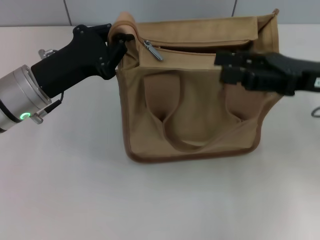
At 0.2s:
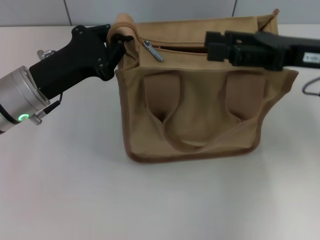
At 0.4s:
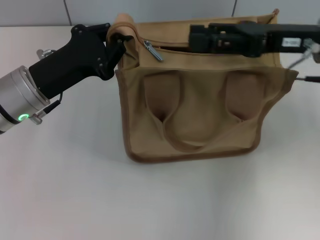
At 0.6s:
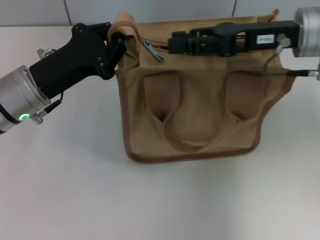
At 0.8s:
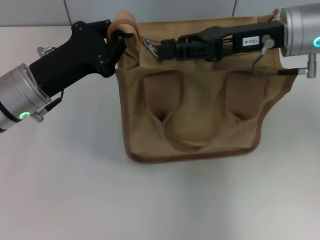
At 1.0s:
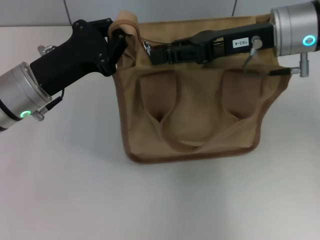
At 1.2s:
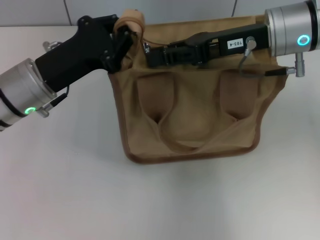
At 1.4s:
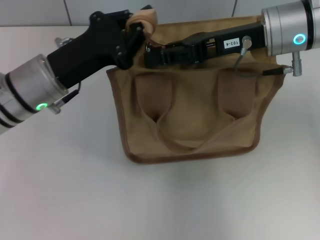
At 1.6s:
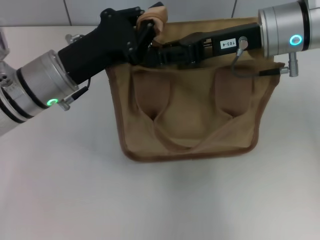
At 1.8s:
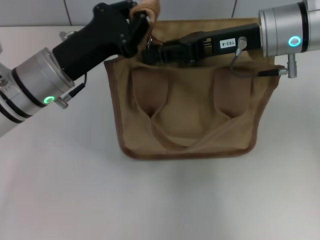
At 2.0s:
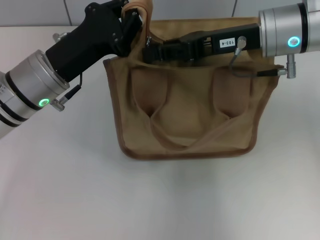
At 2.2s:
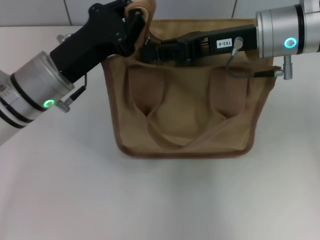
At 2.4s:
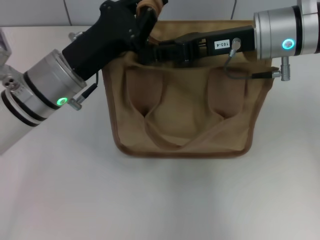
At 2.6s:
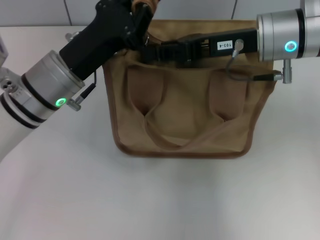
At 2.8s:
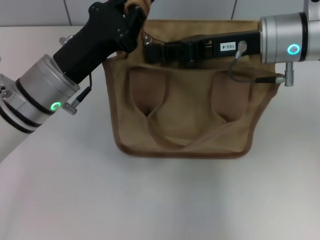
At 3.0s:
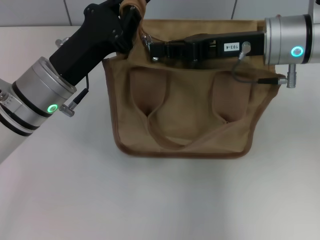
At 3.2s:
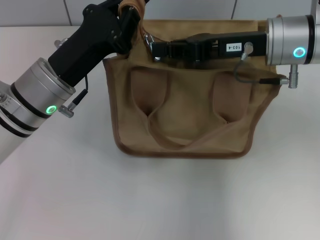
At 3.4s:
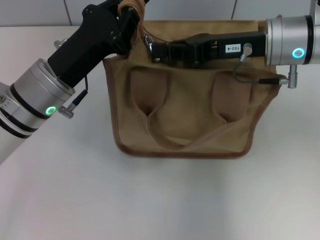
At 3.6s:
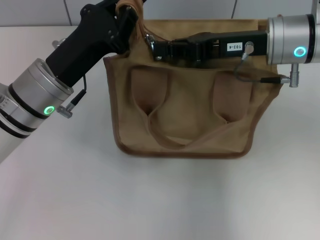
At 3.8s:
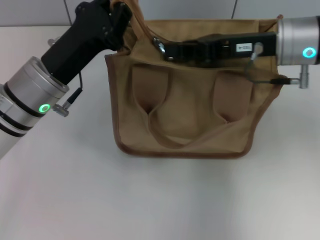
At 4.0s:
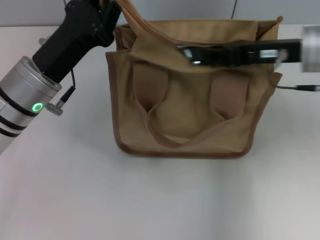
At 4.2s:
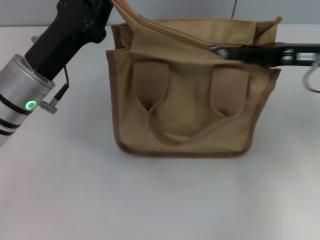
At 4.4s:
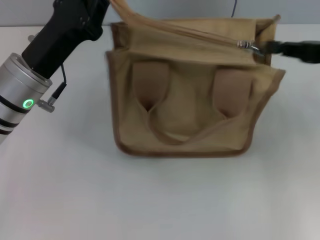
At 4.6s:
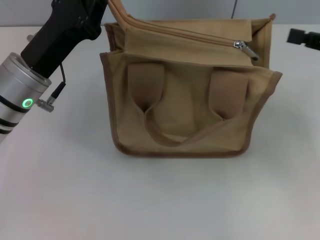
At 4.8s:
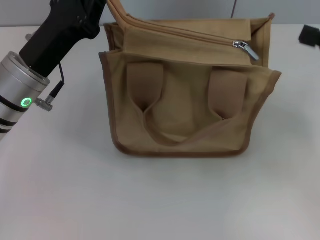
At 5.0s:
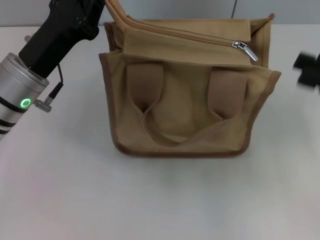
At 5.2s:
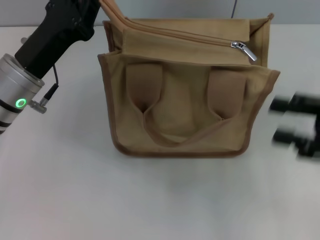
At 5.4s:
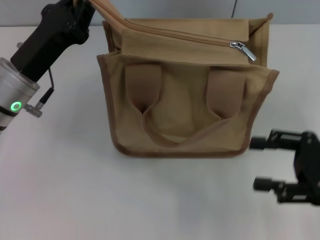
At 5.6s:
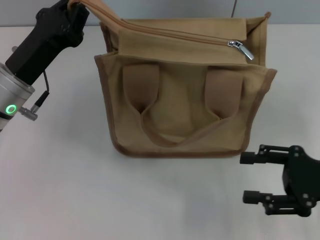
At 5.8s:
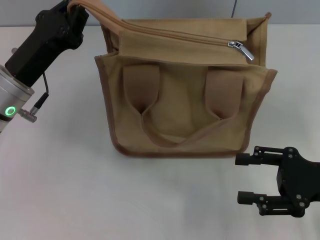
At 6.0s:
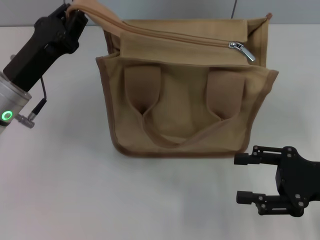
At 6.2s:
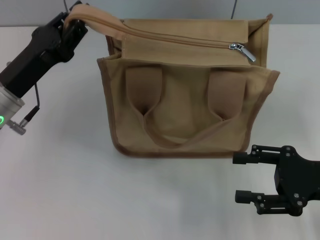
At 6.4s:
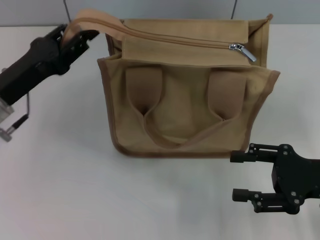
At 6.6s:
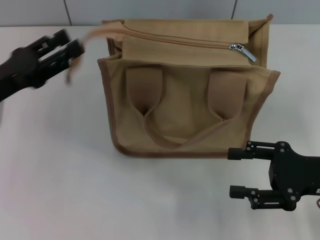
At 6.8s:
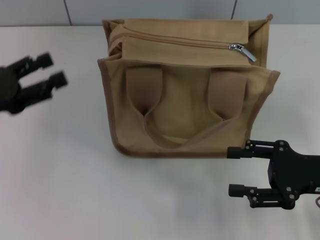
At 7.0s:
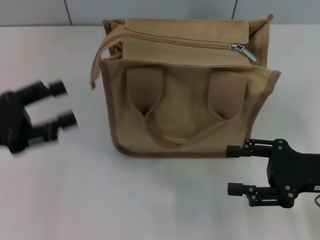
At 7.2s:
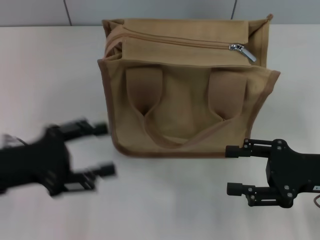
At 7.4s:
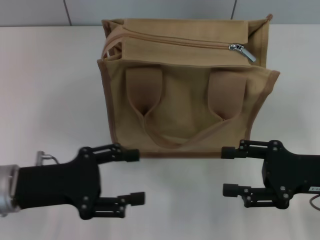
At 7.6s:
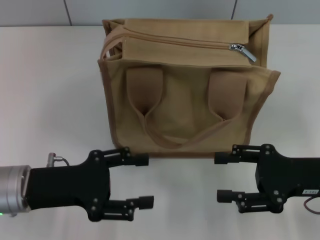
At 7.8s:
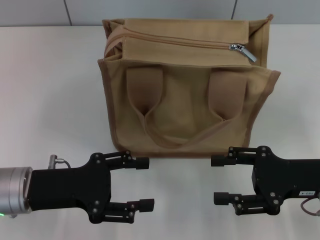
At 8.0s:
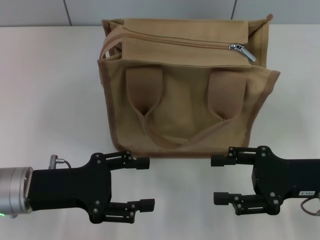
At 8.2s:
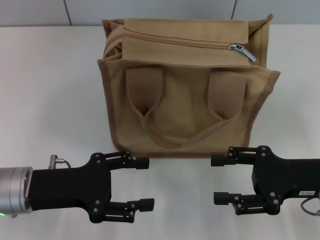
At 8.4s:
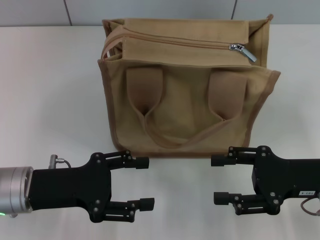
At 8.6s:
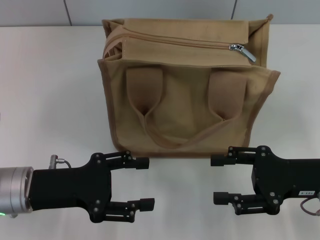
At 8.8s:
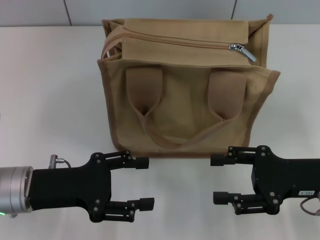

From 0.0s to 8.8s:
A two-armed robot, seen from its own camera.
Step, from 0.0s to 4.6s: Pull up the zipper with your right hand.
Step, from 4.8s to 6.6s: Grab the zipper with your left hand.
From 0.0s to 1.4s: The right gripper is displaced to the left and forward by about 10 cm, and closes.
From 1.4s to 3.0s: The grippers make only small movements.
From 3.0s to 4.4s: The right gripper shifts some 15 cm to the right.
From 4.4s to 5.8s: The right gripper shifts some 15 cm backward and downward, and opens up.
From 5.8s to 7.4s: The left gripper shifts some 10 cm backward, reaches approximately 10 cm to the left, then returns, and opens up.
From 7.4s to 8.8s: The grippers move only a little.

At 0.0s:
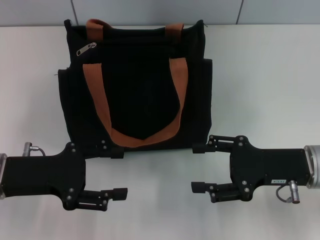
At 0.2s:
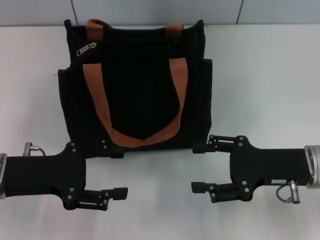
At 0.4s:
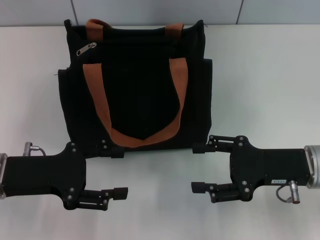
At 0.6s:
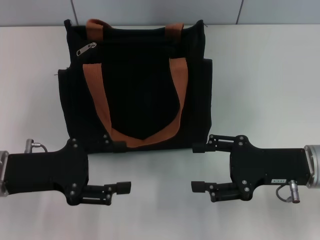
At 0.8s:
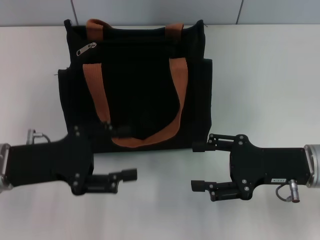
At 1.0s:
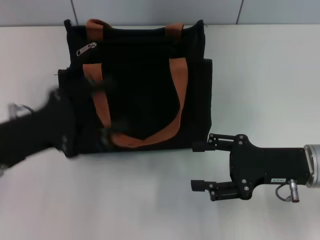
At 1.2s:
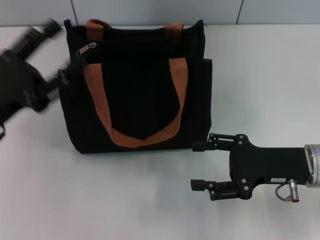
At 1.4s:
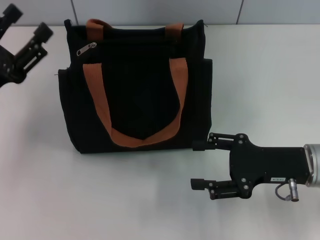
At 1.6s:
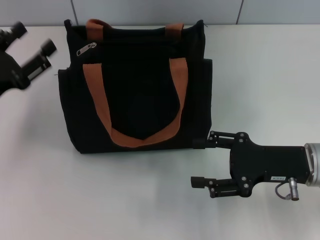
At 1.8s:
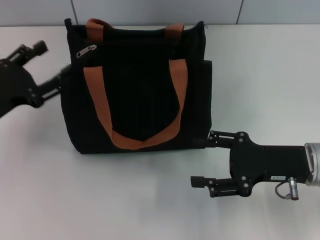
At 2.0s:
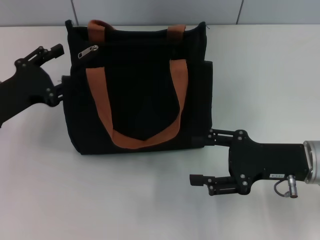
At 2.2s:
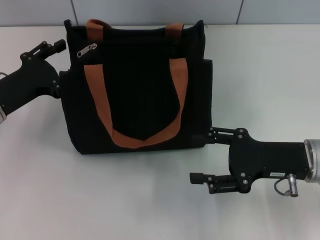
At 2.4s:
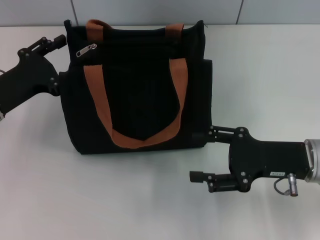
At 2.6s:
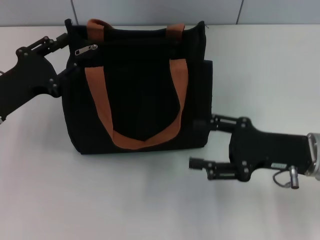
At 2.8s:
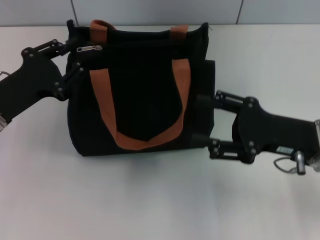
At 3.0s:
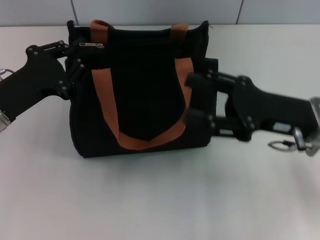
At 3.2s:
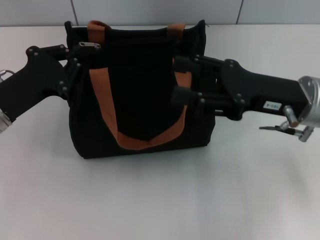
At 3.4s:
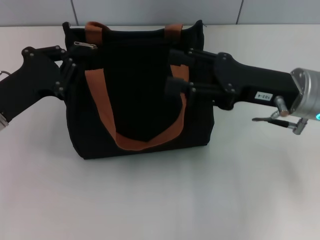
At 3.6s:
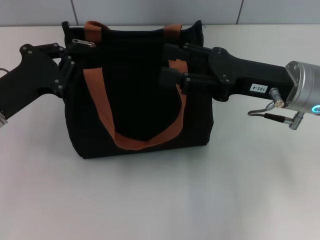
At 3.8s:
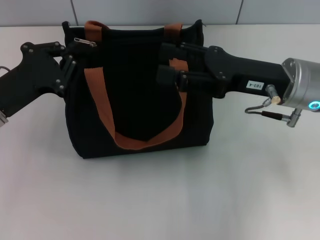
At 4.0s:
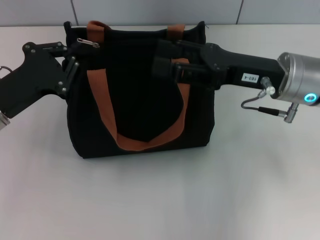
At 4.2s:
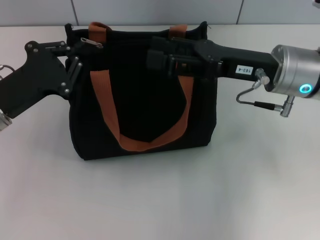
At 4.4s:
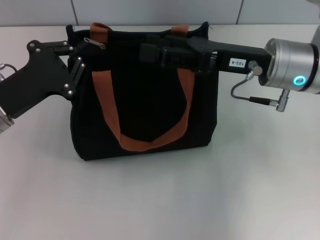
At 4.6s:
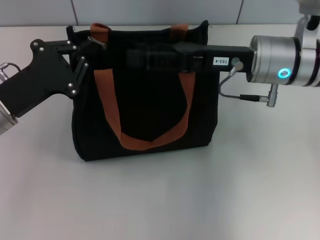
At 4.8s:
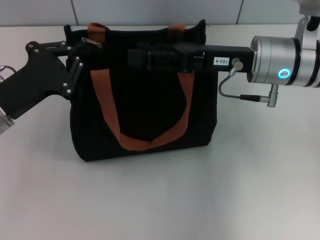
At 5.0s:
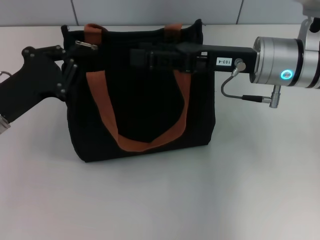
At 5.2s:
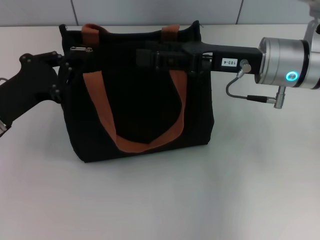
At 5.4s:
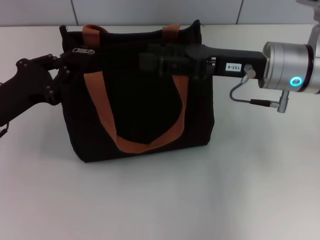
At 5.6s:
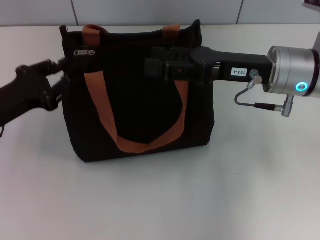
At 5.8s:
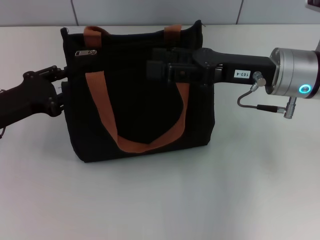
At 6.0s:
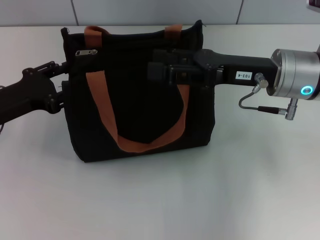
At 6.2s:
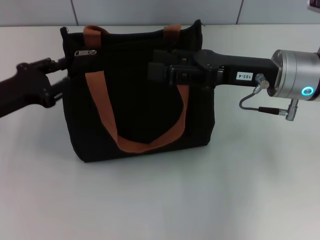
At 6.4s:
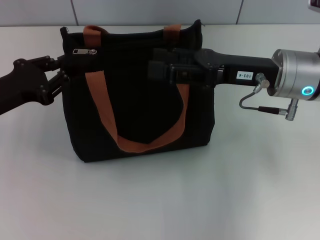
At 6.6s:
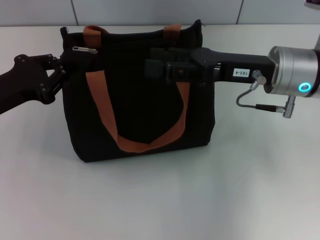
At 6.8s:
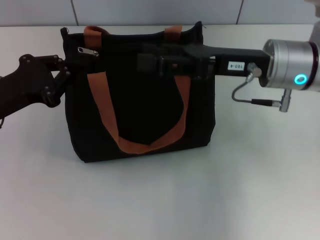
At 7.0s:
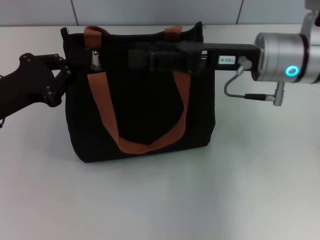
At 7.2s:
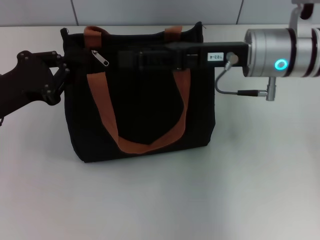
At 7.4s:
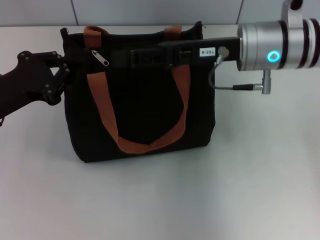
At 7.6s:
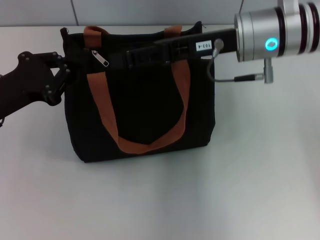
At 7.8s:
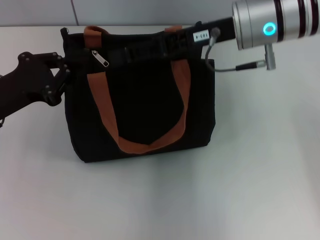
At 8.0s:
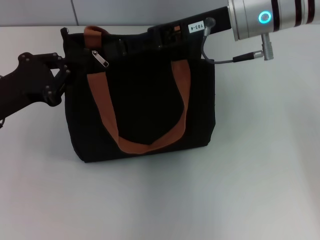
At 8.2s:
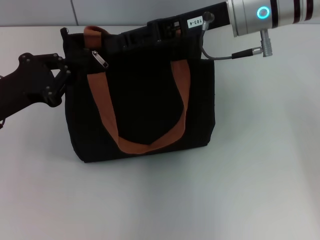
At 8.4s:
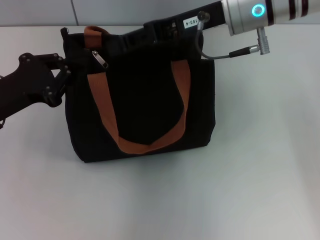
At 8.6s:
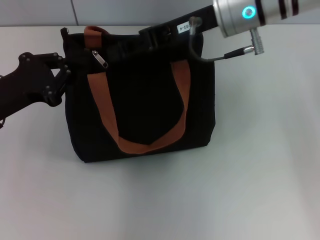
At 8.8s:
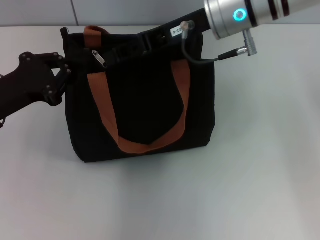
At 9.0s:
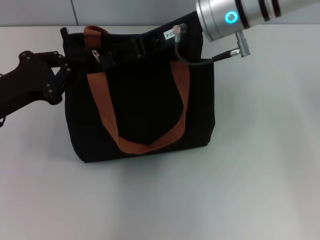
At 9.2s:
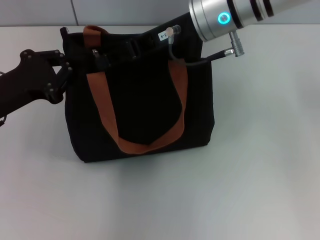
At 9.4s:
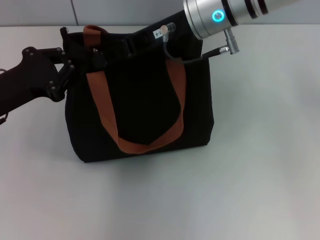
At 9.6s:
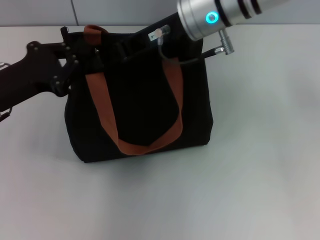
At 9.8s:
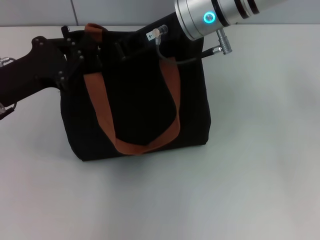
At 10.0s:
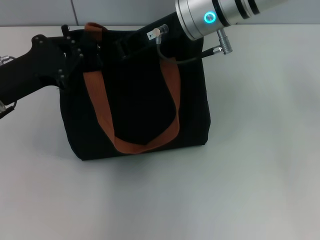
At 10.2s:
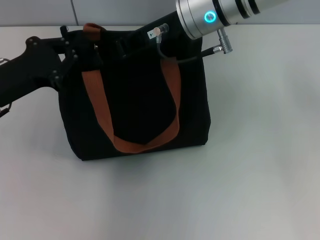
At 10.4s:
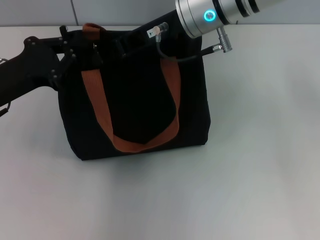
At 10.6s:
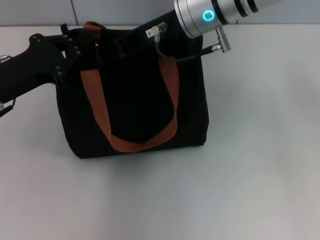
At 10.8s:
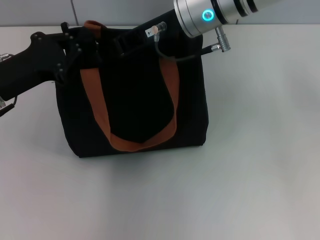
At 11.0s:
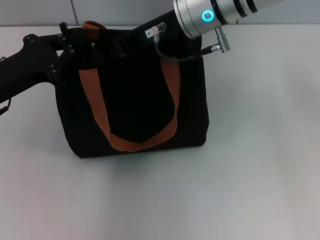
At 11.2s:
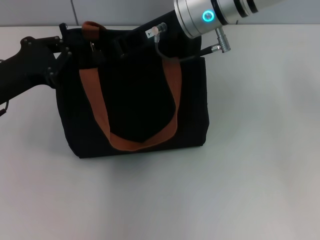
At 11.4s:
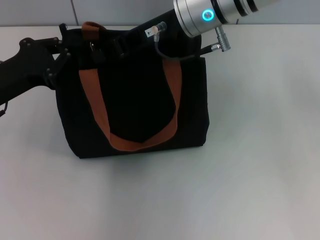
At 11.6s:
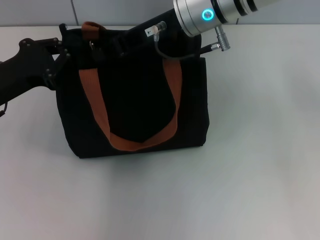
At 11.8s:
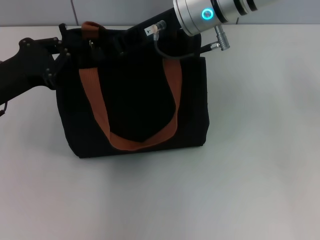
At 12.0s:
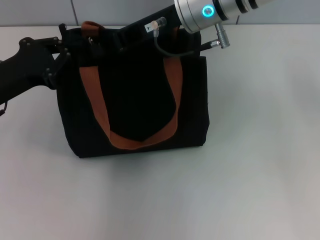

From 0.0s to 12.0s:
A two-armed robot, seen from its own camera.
From 0.0s to 1.6s: The left gripper ends up approximately 5 cm from where it was.
From 1.6s to 3.0s: The right gripper ends up some 5 cm from where it was. The left gripper closes up.
From 3.0s to 4.4s: The right gripper heads forward, covering some 5 cm.
From 4.4s to 6.0s: The left gripper opens up.
From 6.0s to 7.6s: The right gripper changes place by roughly 10 cm. The left gripper closes.
From 7.6s to 9.0s: The right gripper moves approximately 5 cm, and closes.
From 9.0s to 10.4s: There are only small adjustments of the grippers.
From 10.4s to 12.0s: The two grippers keep their place.

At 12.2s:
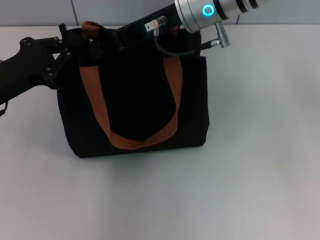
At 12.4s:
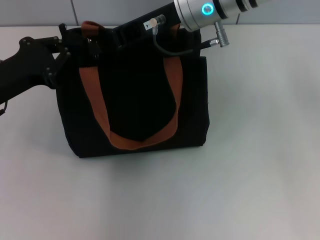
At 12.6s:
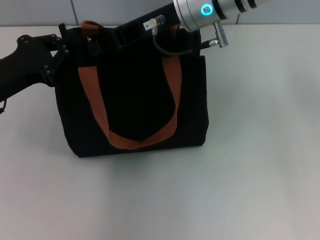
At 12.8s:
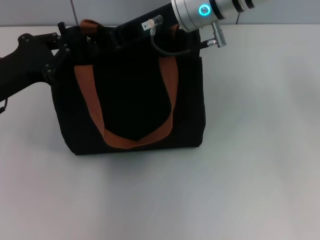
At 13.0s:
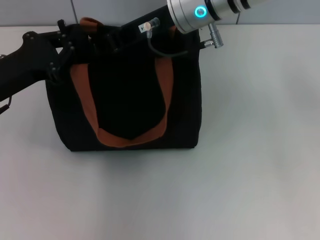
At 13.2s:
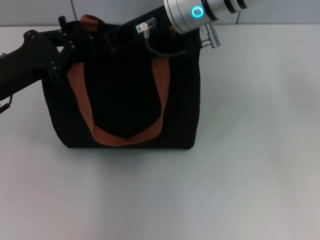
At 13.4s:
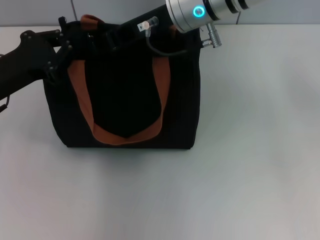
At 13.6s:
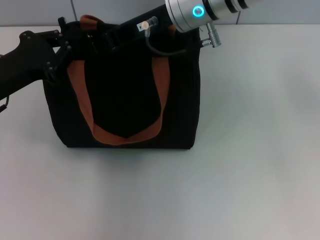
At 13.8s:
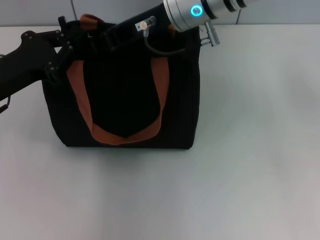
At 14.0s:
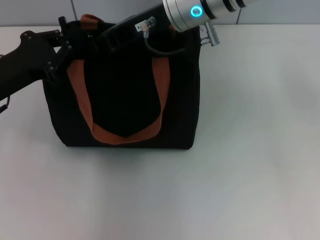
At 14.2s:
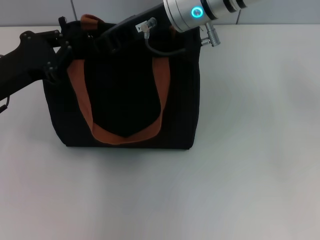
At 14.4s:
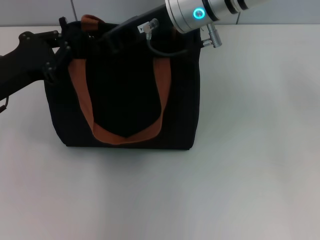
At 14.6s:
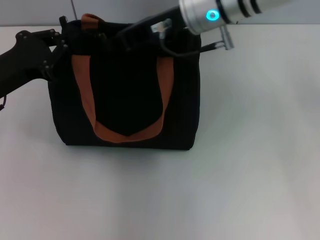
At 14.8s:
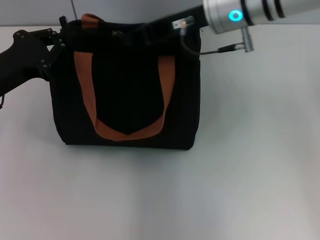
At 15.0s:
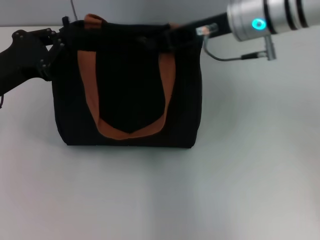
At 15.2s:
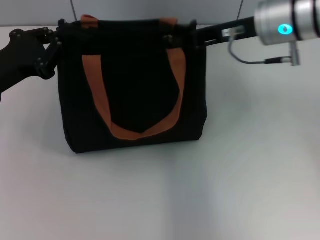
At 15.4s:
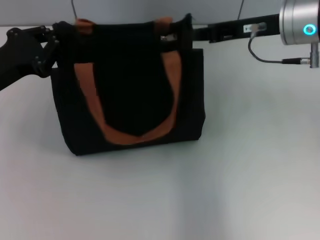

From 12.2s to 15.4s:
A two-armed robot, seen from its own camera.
From 12.2s to 13.8s: Neither gripper changes place.
From 13.8s to 15.4s: The right gripper shifts some 15 cm to the right.
